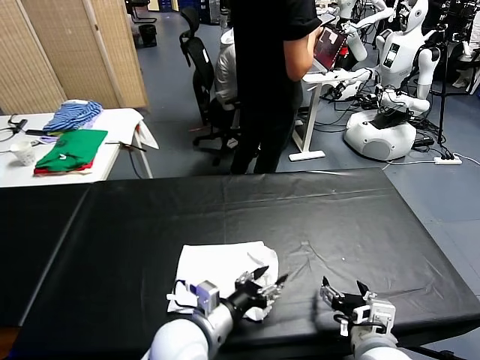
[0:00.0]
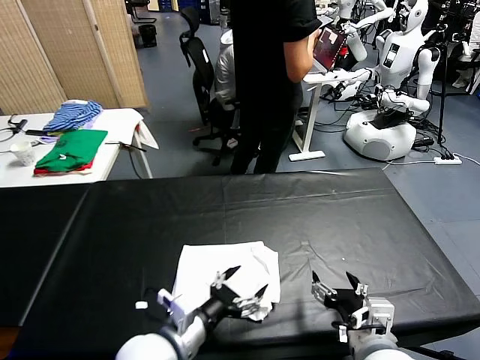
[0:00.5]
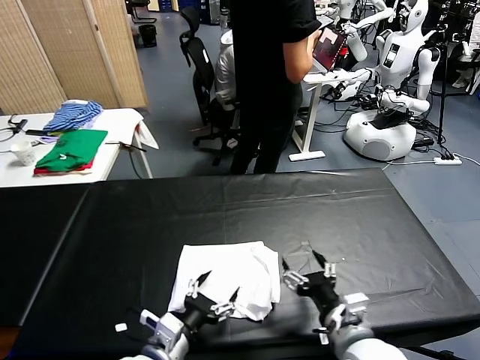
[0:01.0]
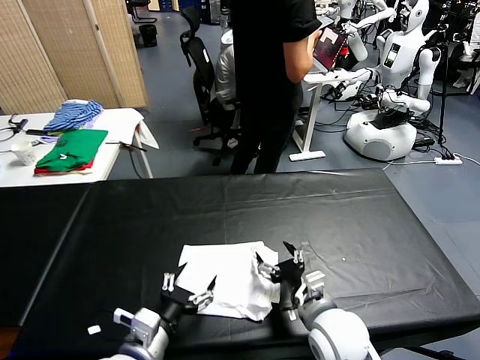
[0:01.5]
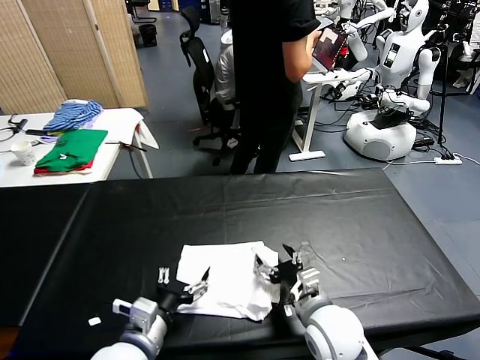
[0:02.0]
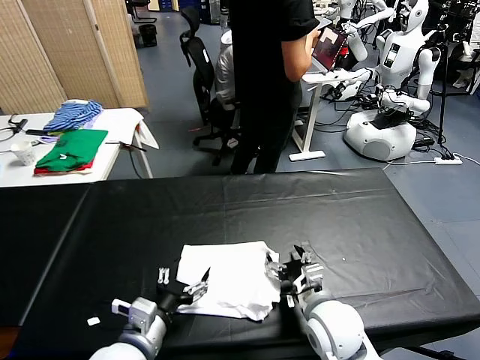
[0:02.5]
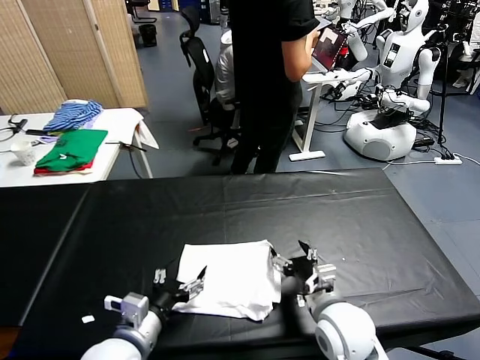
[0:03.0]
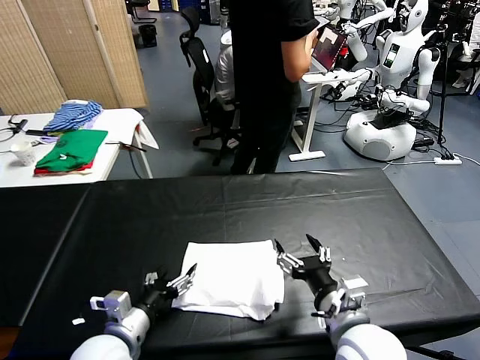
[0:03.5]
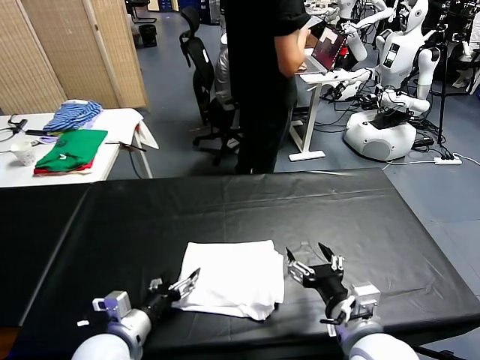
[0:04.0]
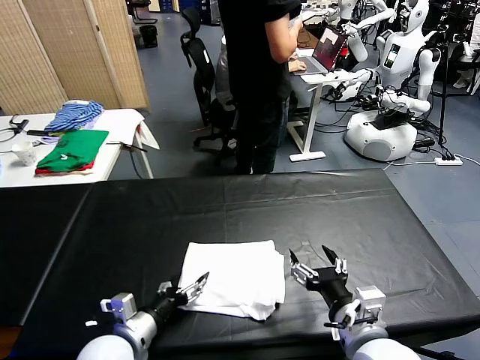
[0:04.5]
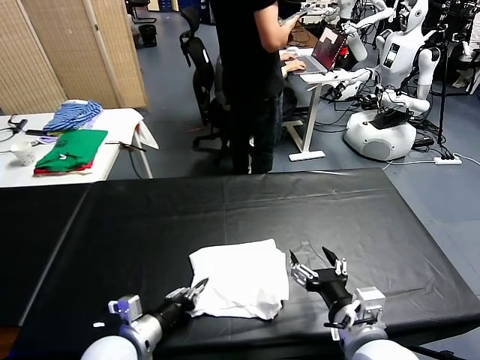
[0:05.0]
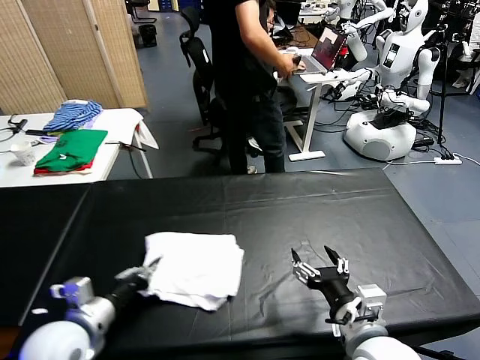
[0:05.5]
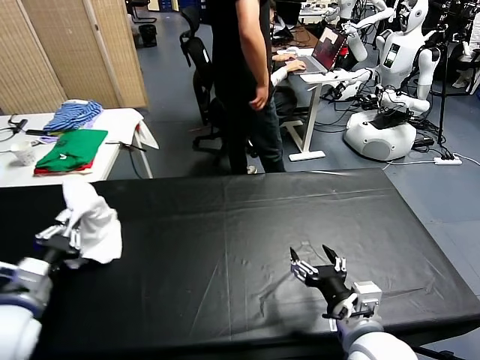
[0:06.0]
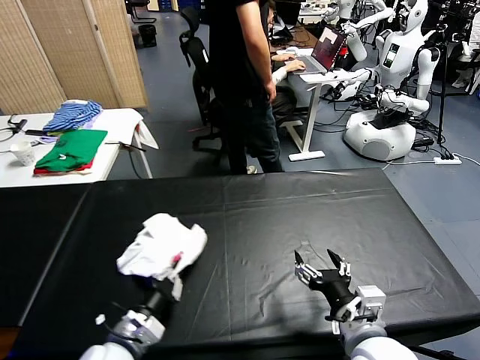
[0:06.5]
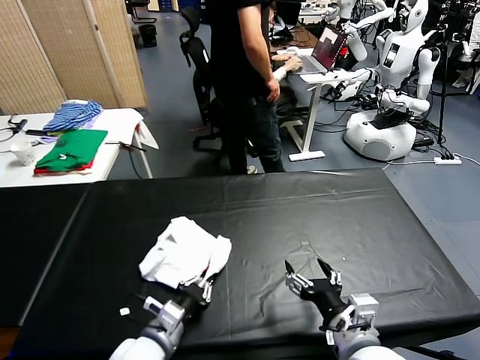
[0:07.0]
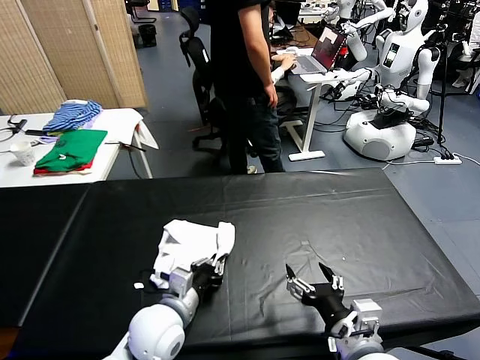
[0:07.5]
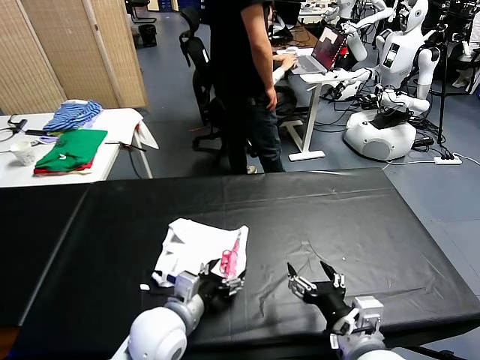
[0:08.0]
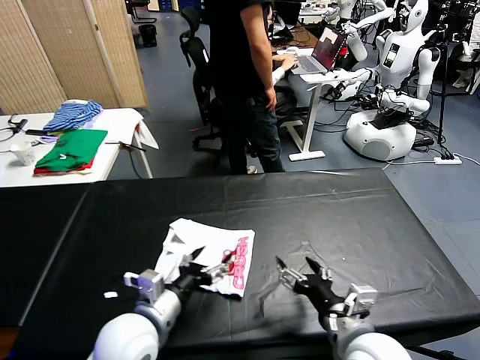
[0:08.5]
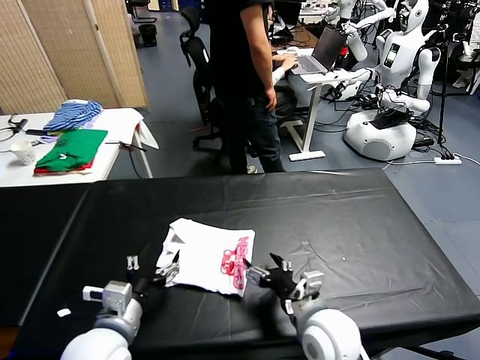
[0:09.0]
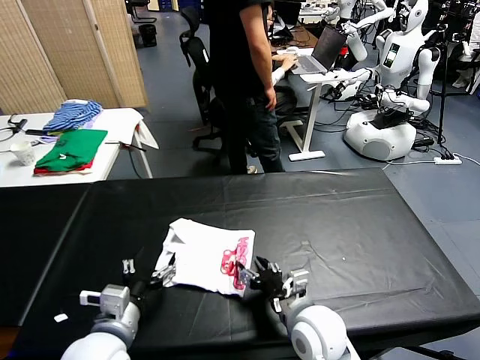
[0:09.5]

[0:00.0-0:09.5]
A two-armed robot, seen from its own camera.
Task of the whole recording: fold and organize the clothes.
Step, 0:00.5 to 0:08.0: Flip the folded clothes over with left gripper.
0:00.0 to 0:02.0: The right gripper travels forward and to the left by approximately 10 cm, while the left gripper shifts approximately 10 cm to the left, and opens.
0:02.0 to 0:04.0: The left gripper is displaced to the left by about 5 cm. The right gripper goes approximately 10 cm upward and backward.
0:04.0 to 0:05.5: The left gripper moves about 5 cm, and closes its fingers.
0:05.5 to 0:07.5: The left gripper moves to the right, about 15 cm.
0:07.5 to 0:09.5: The left gripper travels to the left, backward and upward by roughly 10 cm, and opens up. The right gripper goes some 15 cm forward, downward and to the left.

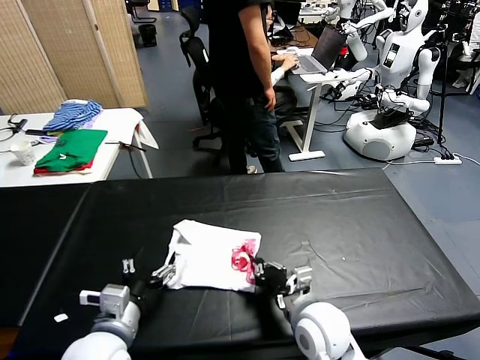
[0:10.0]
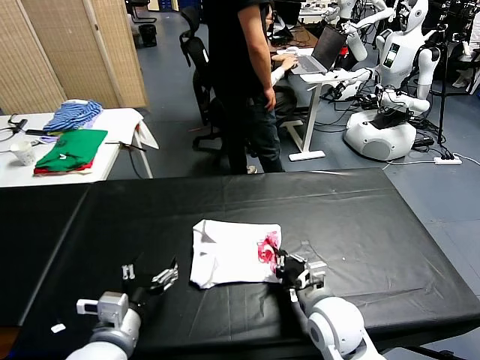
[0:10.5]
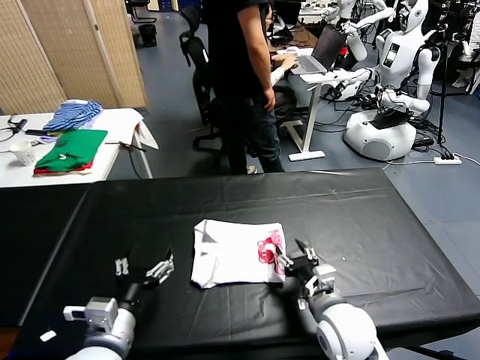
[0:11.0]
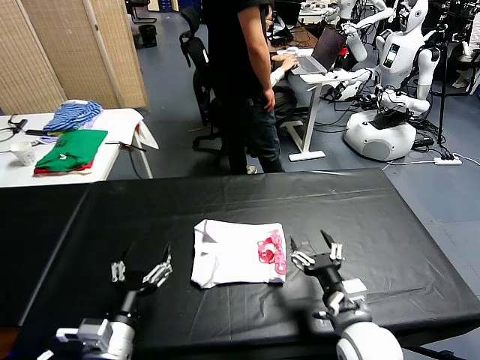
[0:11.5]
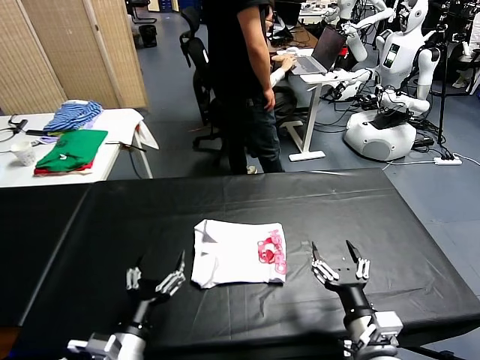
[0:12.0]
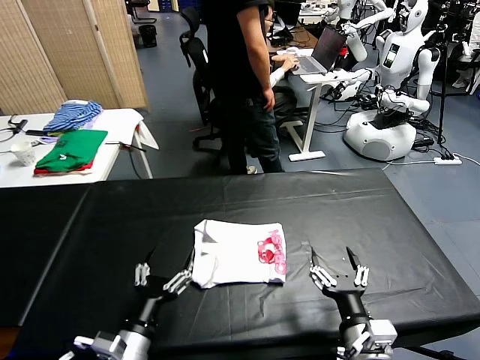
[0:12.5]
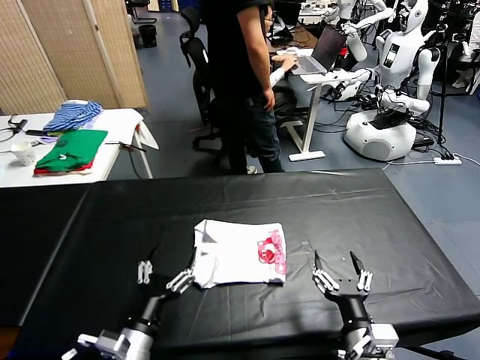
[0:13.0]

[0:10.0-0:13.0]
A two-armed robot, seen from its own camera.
Task of the whole recording: fold and organize the clothes.
0:10.0 to 0:11.5: The right gripper moves to the right, about 5 cm, and opens up.
0:11.5 to 0:13.0: The right gripper is displaced backward by roughly 10 cm.
